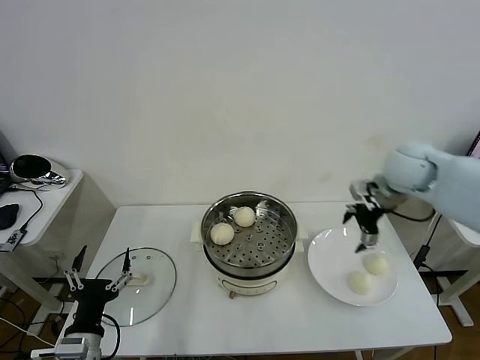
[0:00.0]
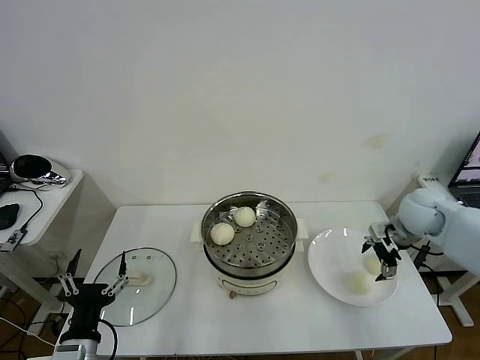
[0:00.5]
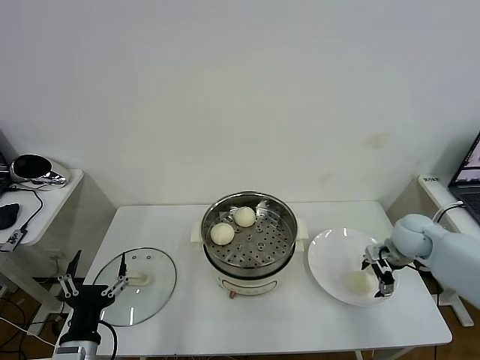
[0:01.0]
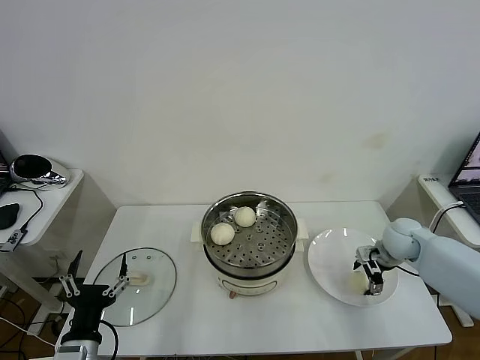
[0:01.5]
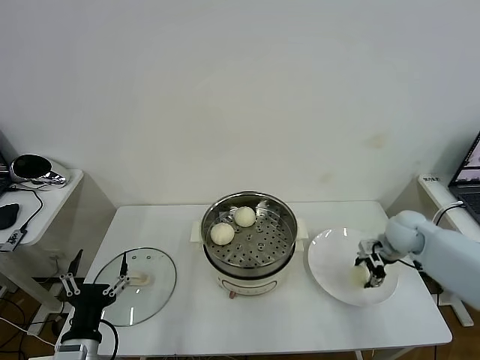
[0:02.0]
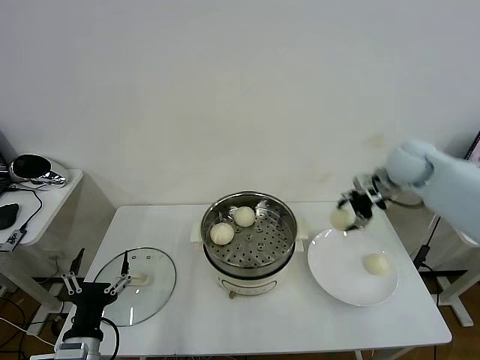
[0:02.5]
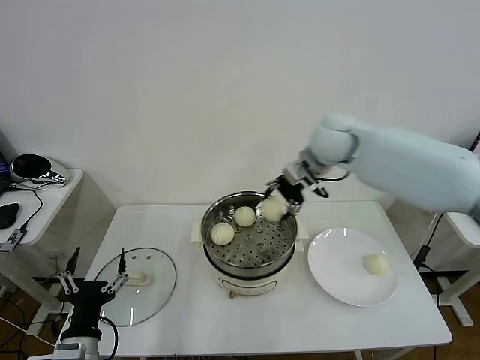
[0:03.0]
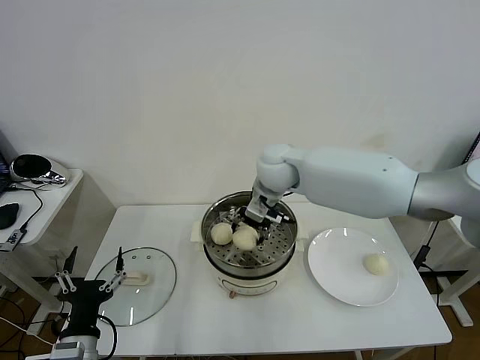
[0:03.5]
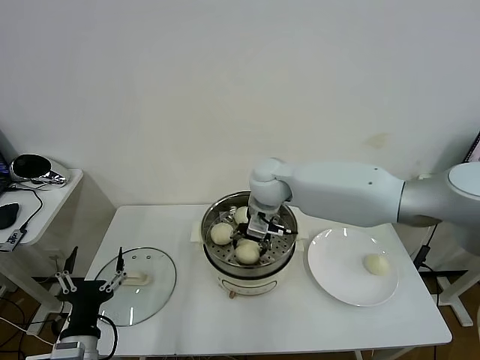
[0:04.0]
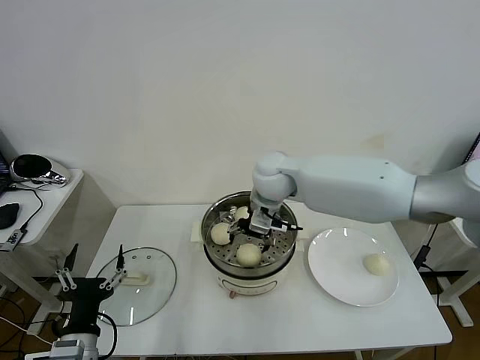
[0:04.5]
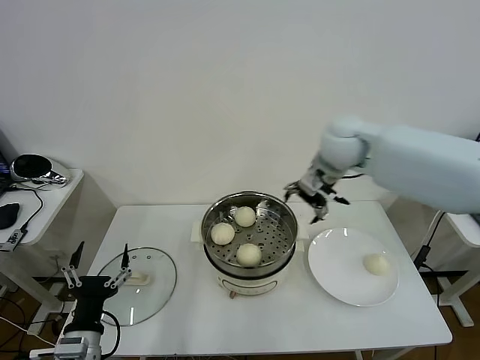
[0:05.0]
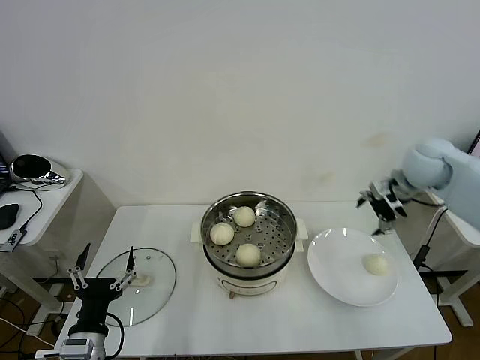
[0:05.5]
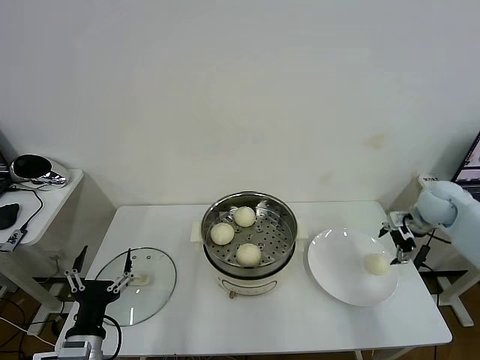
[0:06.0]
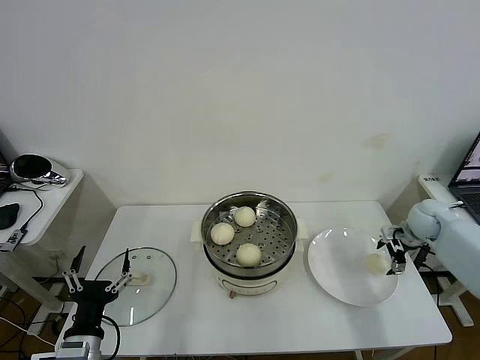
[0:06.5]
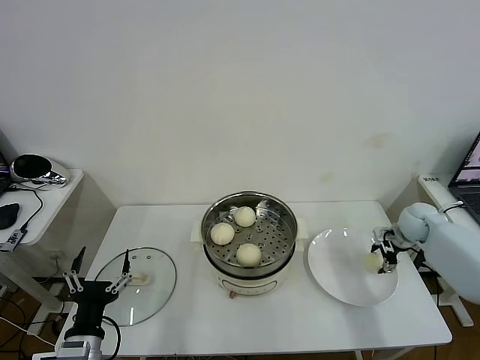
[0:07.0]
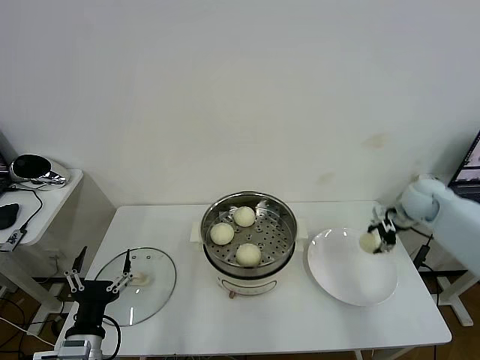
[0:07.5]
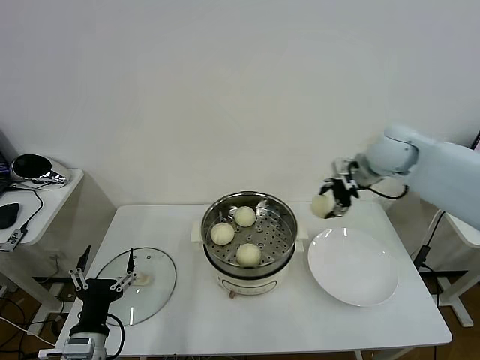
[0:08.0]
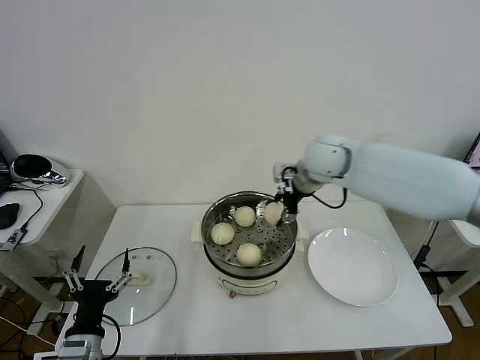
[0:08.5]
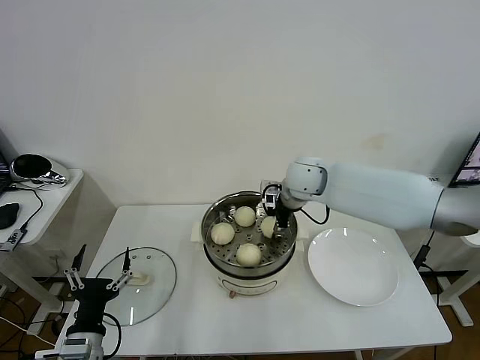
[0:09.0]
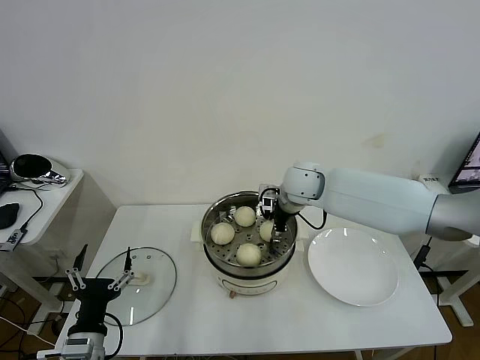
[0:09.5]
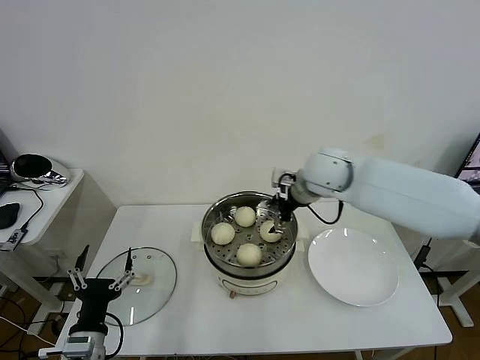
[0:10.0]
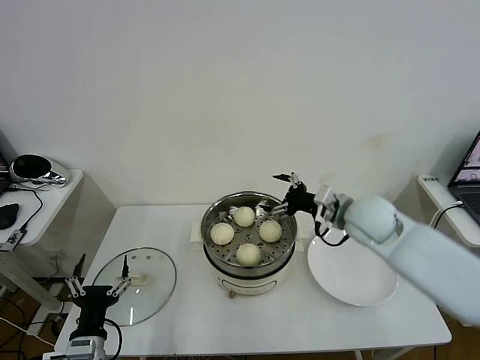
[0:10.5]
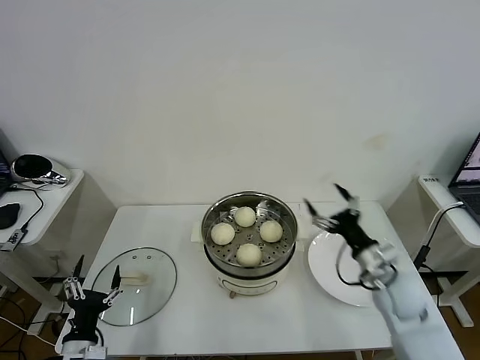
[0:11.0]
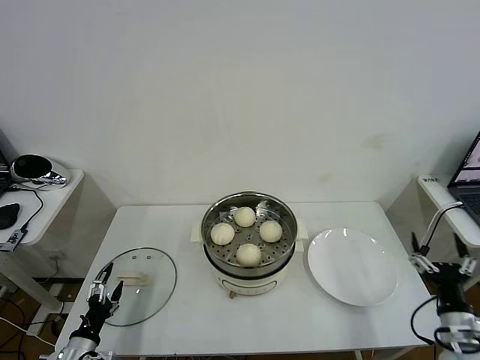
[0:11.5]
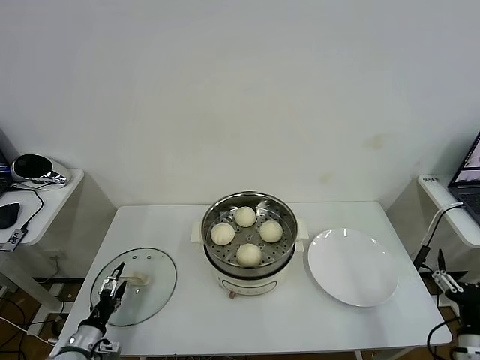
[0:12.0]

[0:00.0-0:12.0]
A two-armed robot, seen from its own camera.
Task of the whole recording: take steamed baozi put them in steamer then cover it.
Step, 0:00.0 to 0:01.5: Grasp the baozi in the plate with right gripper.
Step, 0:02.0 to 0:04.0: Place the baozi on the steamer with right gripper.
Step, 0:04.5 to 0:07.0: Grasp the baozi in the plate with right gripper.
Step, 0:07.5 to 0:09.5: Place the baozi on the steamer with right gripper.
0:00.0 to 0:02.0: The right gripper is displaced downward by roughly 15 cm, and closes up.
0:02.0 to 0:04.0: The right gripper goes approximately 35 cm to the left.
0:04.0 to 0:06.0: The right gripper shifts some 40 cm to the right, and opens.
0:06.0 to 0:08.0: The right gripper is displaced to the left and upward by some 20 cm, and closes its fingers.
0:08.0 to 0:10.0: The right gripper goes roughly 15 cm to the left, and opens its fingers.
0:10.0 to 0:12.0: The left gripper heads downward and to the left, covering approximately 20 cm. The right gripper is displaced backward, to the right and downward by roughly 50 cm.

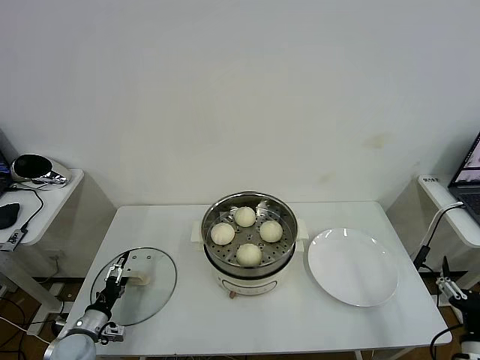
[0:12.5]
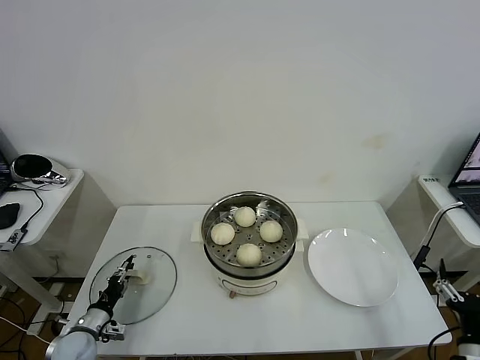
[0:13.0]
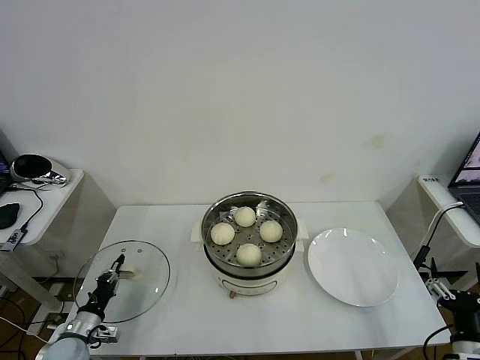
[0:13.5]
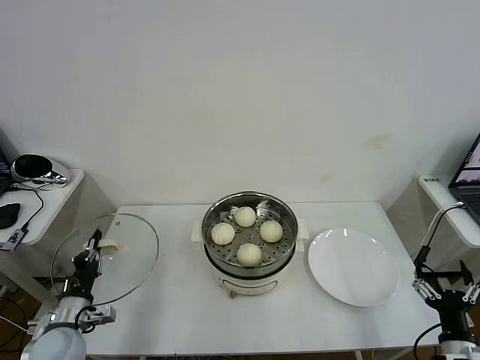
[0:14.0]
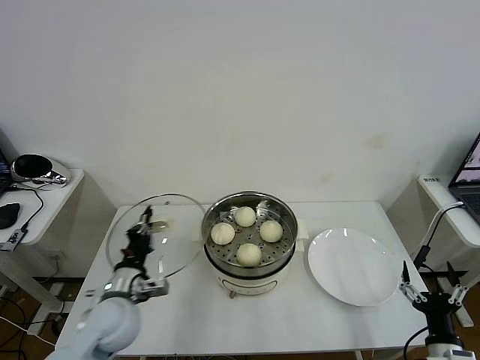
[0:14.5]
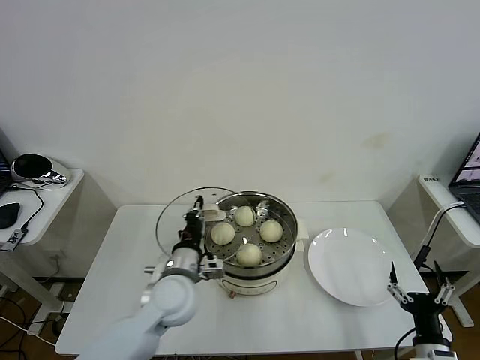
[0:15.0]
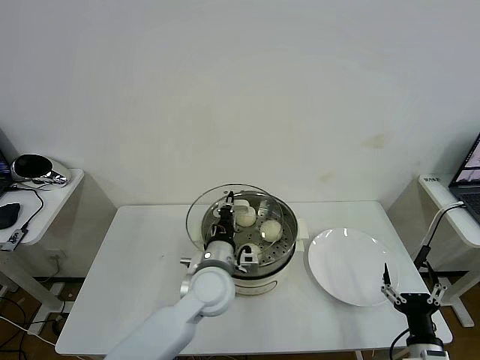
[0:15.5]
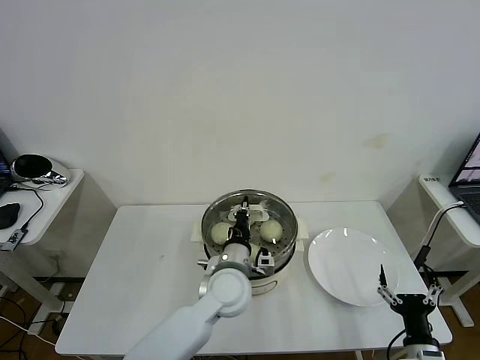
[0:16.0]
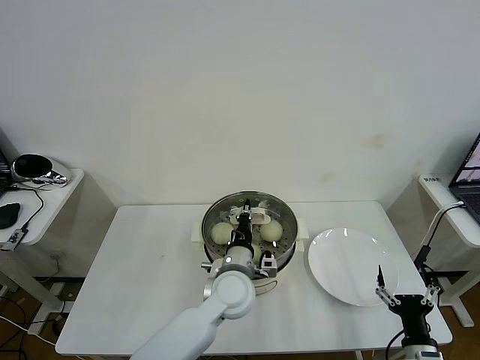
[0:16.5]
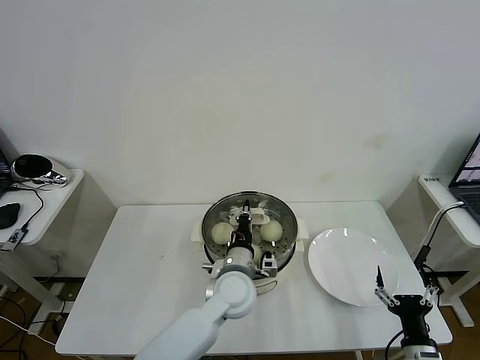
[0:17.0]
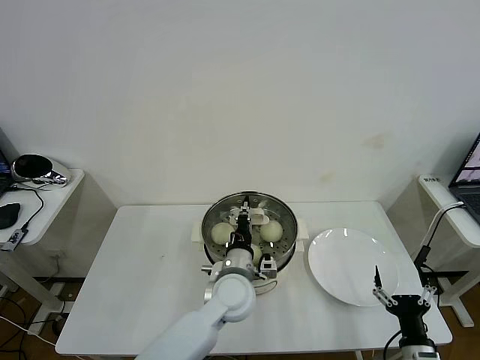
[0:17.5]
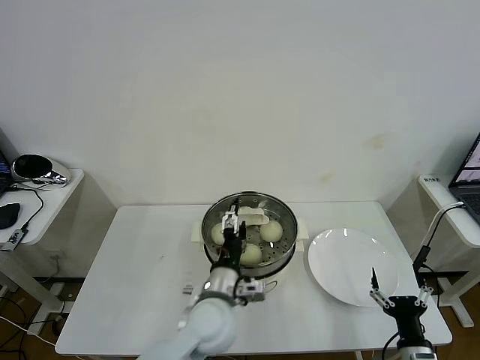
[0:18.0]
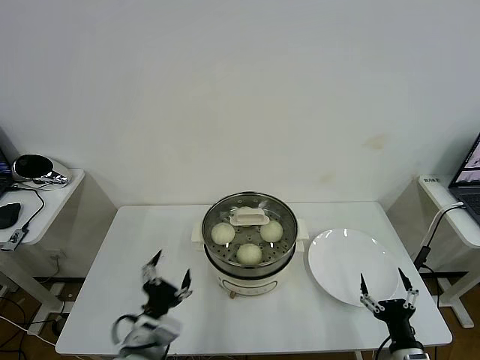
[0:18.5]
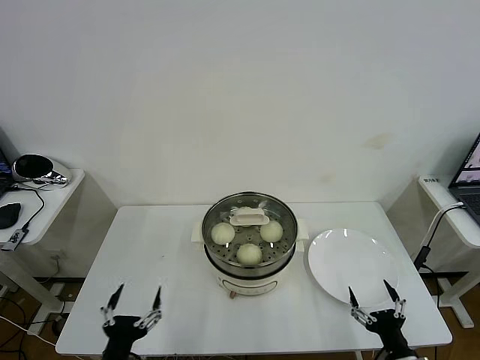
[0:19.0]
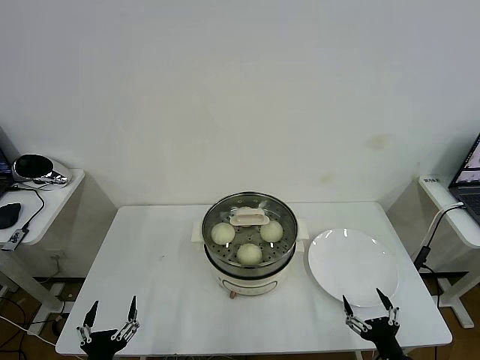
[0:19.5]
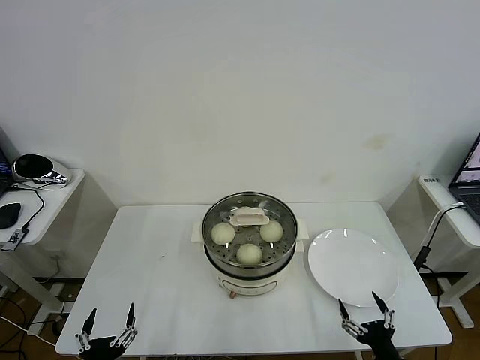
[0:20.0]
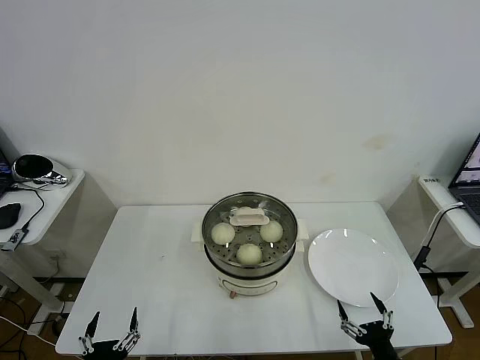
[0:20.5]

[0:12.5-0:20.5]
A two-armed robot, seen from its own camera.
Task of the whole recording: take steamed baozi put them in steamer then cover it.
Step, 0:13.5 to 0:18.0: Place the pot lid on the steamer with left gripper.
0:12.5 to 0:14.5: The left gripper moves upward and to the right, about 20 cm, and closes up.
0:14.5 to 0:16.5: The left gripper heads to the right, covering approximately 25 cm.
0:16.5 to 0:18.5: The left gripper moves backward and to the left, approximately 20 cm, and opens up.
0:18.5 to 0:20.5: The left gripper travels backward, to the left and downward by roughly 20 cm.

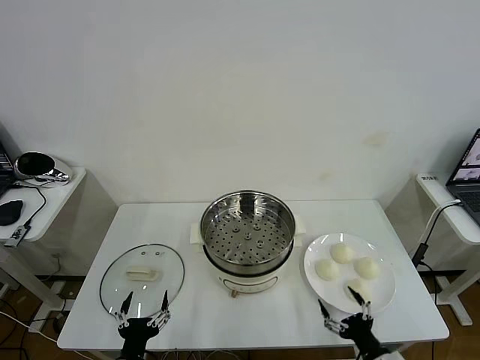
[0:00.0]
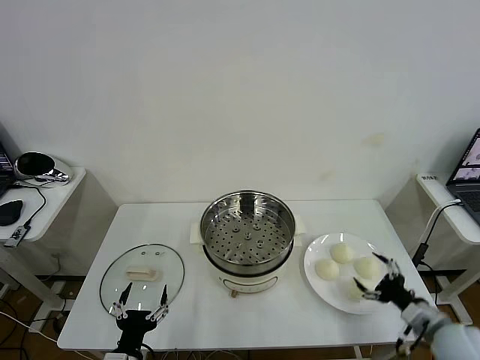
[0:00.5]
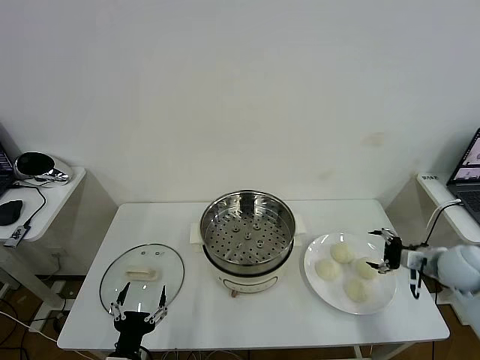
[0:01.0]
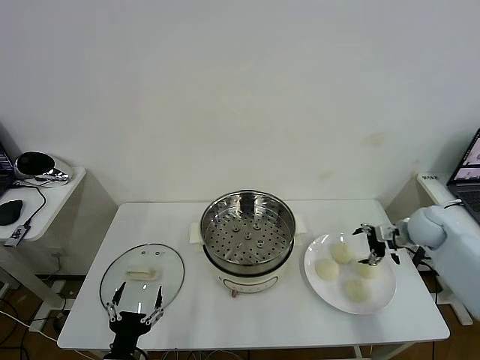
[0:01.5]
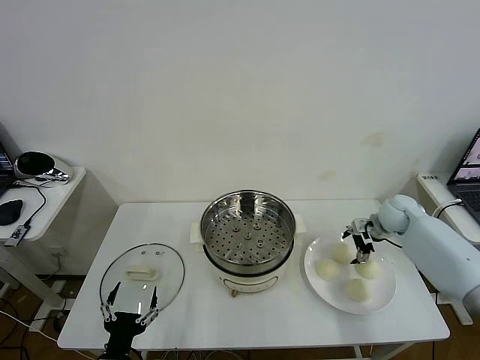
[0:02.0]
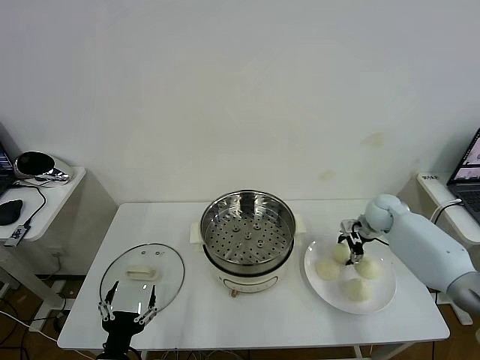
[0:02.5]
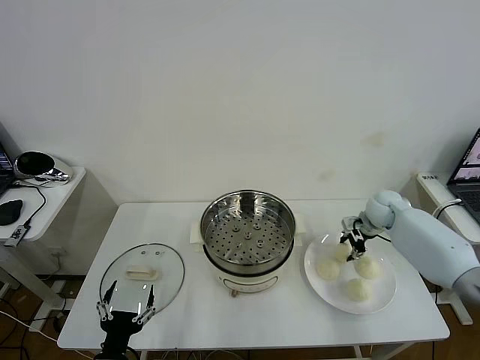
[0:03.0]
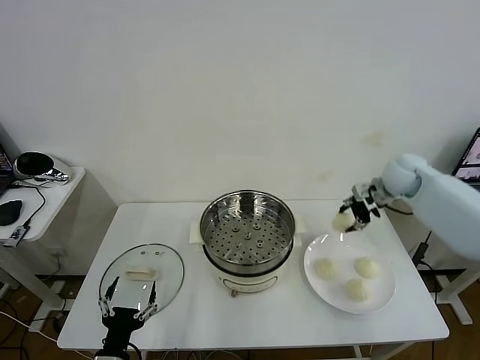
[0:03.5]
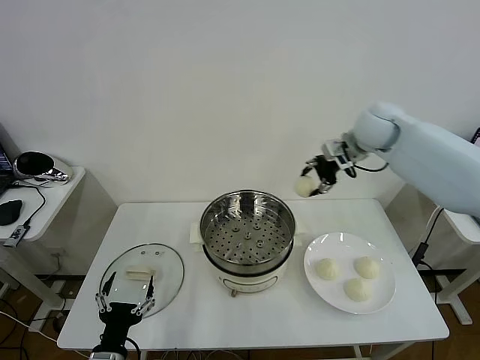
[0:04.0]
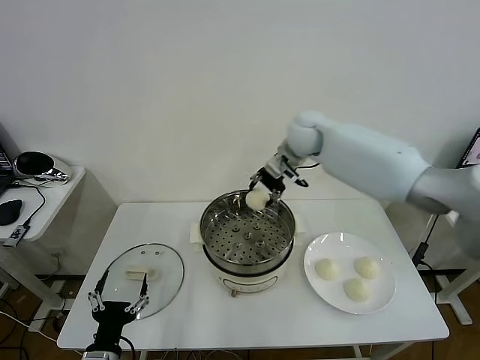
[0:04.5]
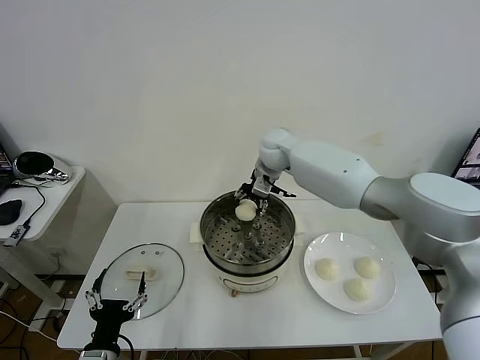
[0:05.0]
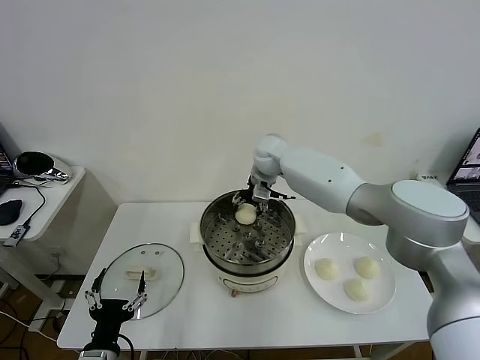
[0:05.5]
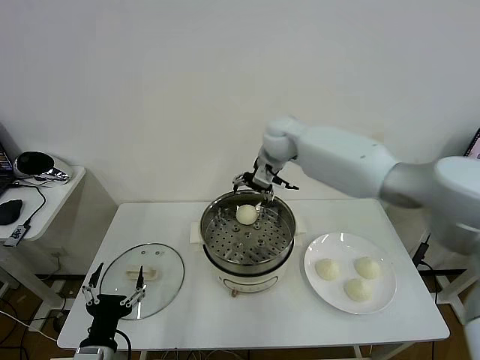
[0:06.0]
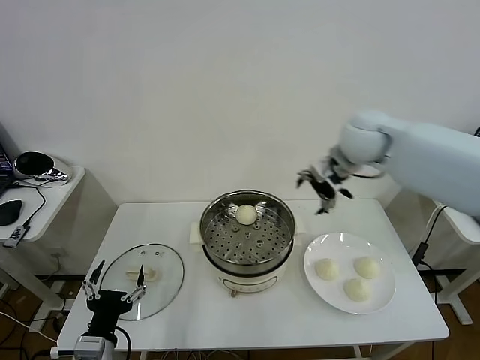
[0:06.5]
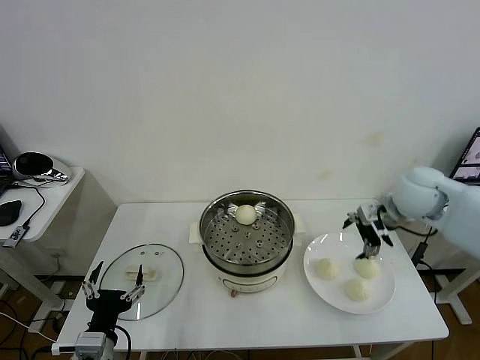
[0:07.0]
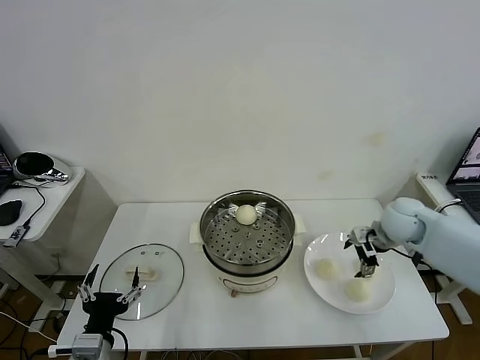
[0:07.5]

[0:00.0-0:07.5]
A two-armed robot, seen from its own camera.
Task of the whole recording: take steamed baozi put them in steamer then cover it.
Step, 0:00.0 to 0:02.5: Grasp the baozi in the plate with right gripper.
Step, 0:03.0 to 0:05.5: Place the baozi on the steamer with right gripper.
0:02.0 to 0:04.0: The right gripper travels upward and to the left by some 30 cm, and closes.
0:04.0 to 0:05.5: The right gripper shifts some 20 cm to the left and downward, and opens up.
0:05.5 to 0:07.5: The right gripper heads to the right and backward, covering approximately 35 cm.
